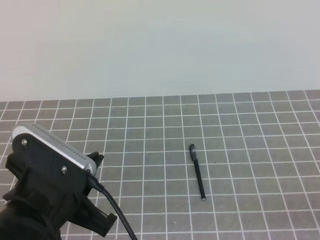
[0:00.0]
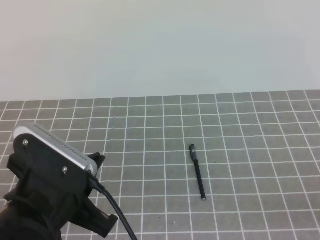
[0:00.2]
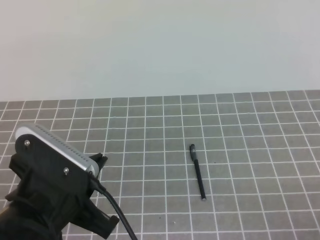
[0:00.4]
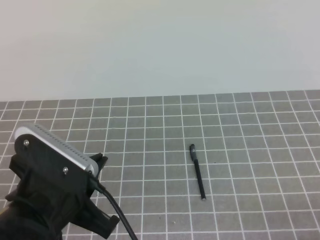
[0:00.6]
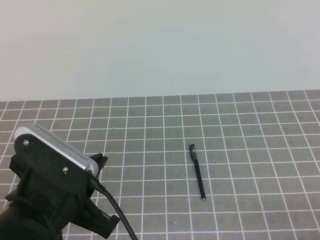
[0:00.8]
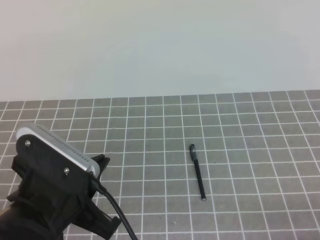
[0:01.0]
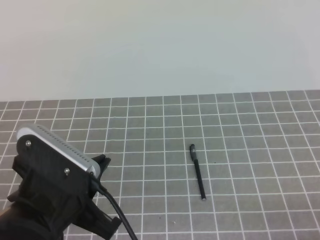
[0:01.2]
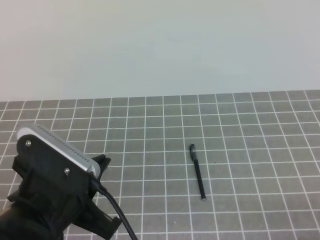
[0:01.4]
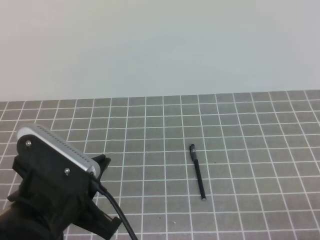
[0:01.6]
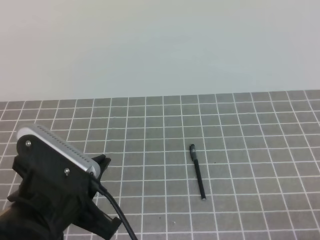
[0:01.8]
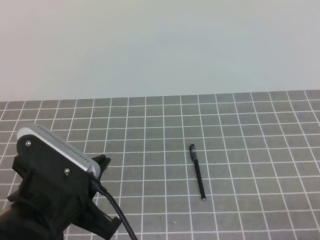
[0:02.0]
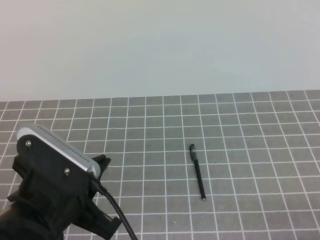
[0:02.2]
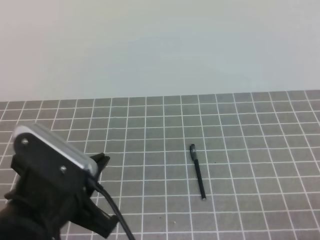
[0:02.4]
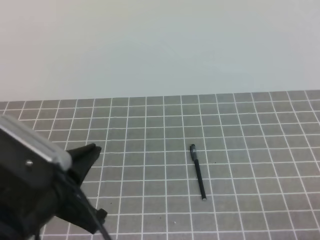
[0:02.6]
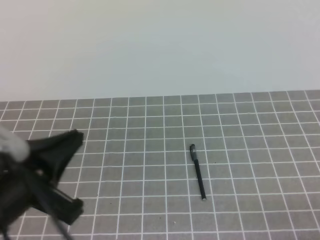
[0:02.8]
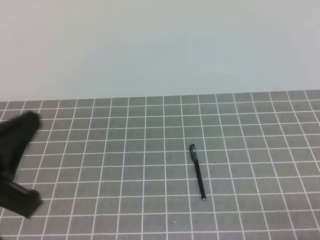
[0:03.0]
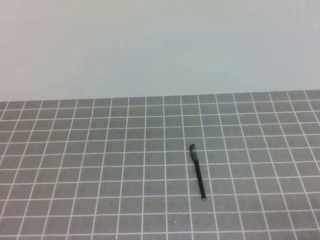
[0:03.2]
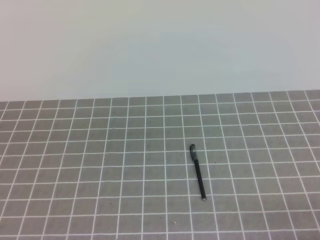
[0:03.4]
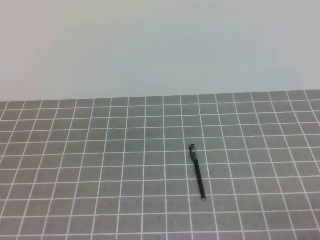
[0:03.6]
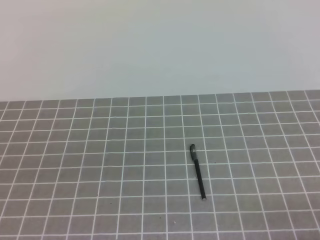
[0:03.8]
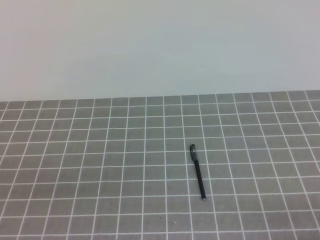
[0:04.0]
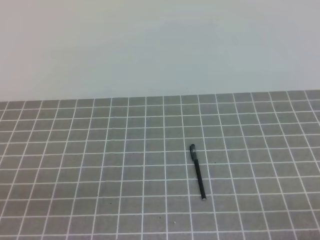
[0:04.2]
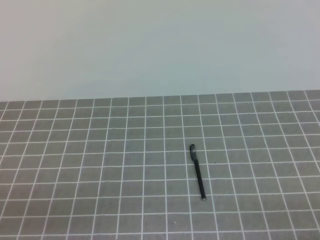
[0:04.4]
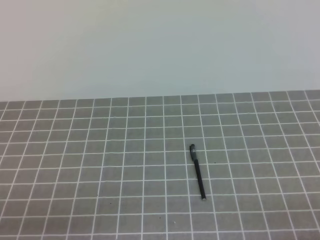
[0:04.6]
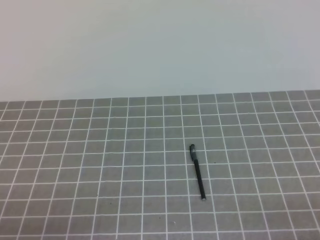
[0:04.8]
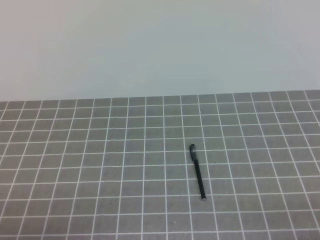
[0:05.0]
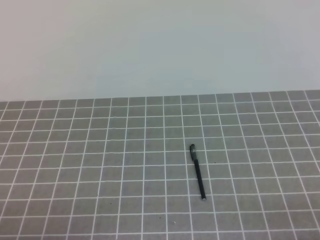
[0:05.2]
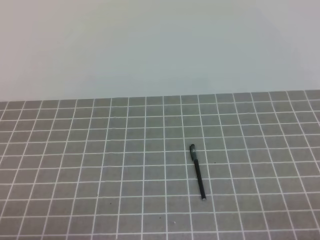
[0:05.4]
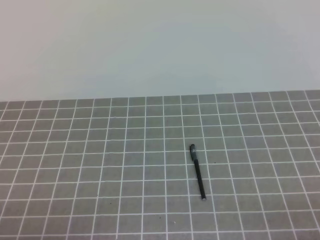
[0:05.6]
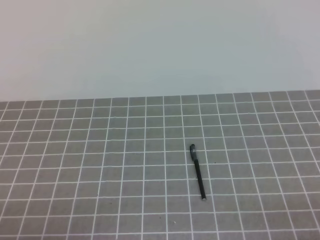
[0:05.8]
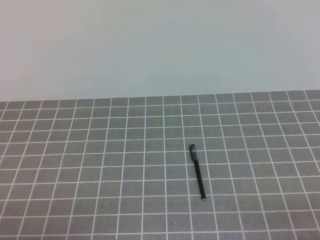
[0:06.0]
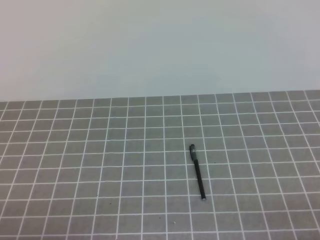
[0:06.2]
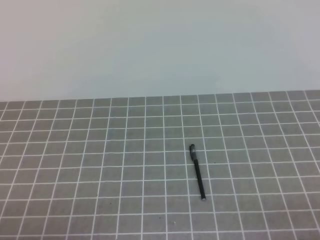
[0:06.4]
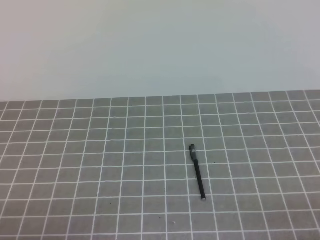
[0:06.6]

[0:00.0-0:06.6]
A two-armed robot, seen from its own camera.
Task of the whole recording: on the grey tablecloth, hold the pen cap in one hand and the pen in the other, then cover the pen cap.
Step, 0:00.0 to 0:06.6: Put the cap on the pen.
0:01.6 to 0:03.2: The left gripper travels to the left and upward by approximately 10 cm.
0:03.2 to 0:05.0: The left gripper is displaced downward by approximately 15 cm.
0:05.0 to 0:06.6: Neither gripper changes place.
